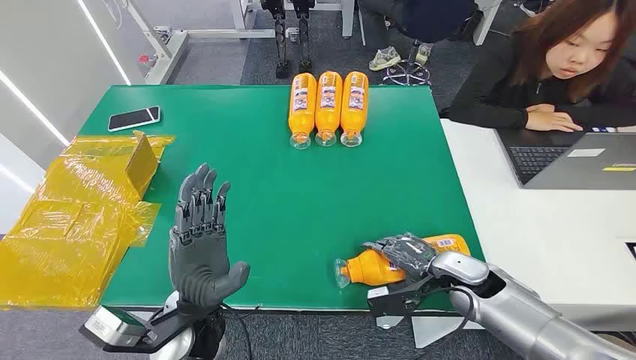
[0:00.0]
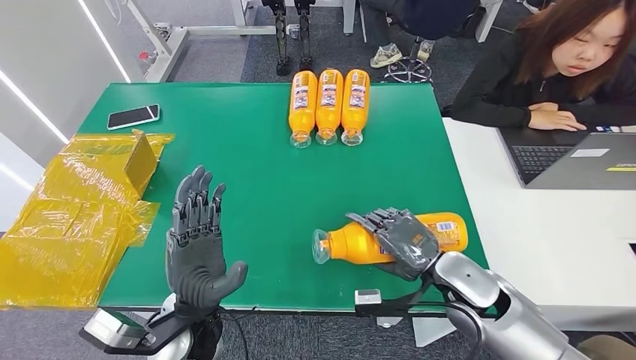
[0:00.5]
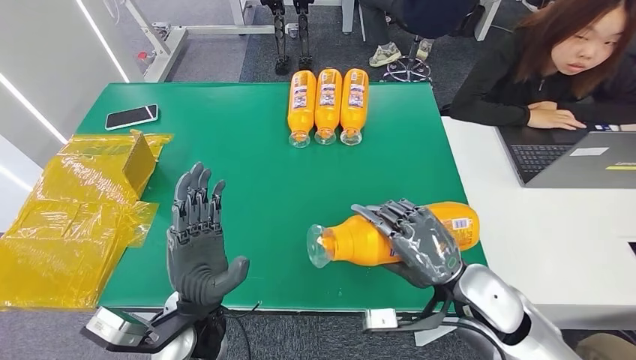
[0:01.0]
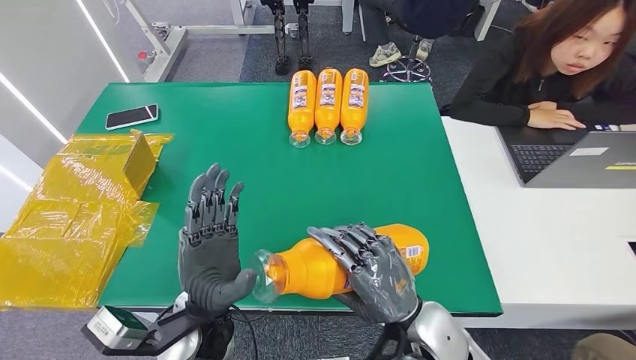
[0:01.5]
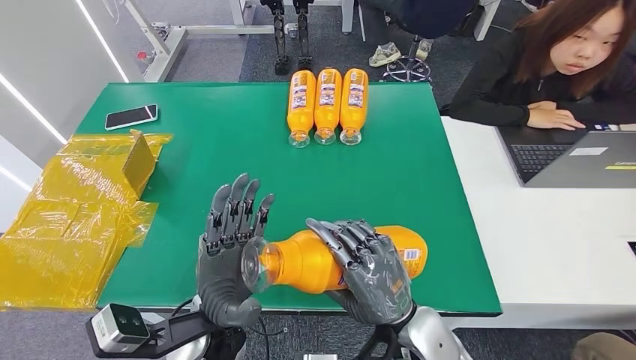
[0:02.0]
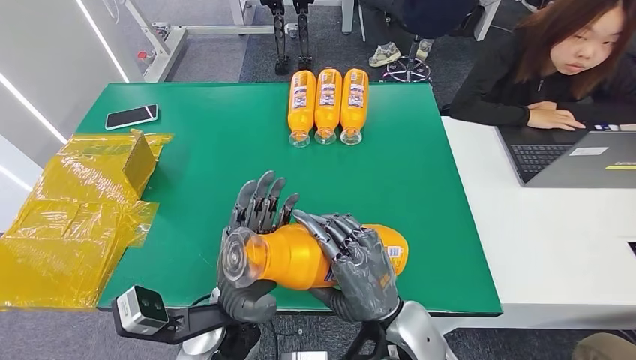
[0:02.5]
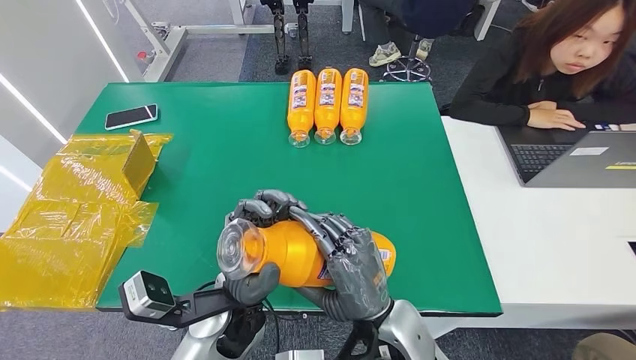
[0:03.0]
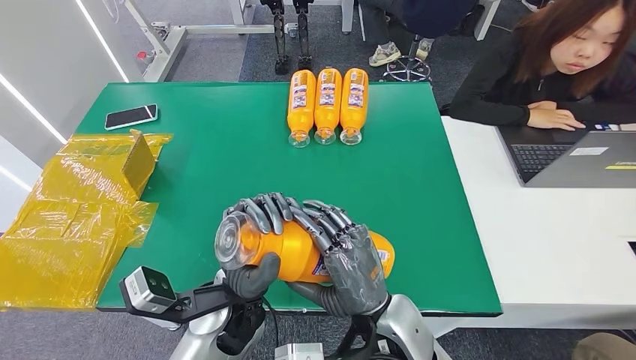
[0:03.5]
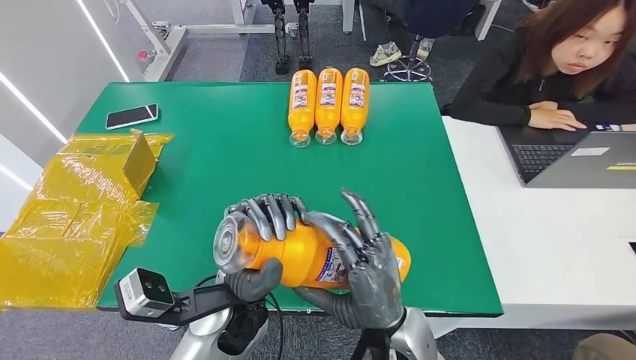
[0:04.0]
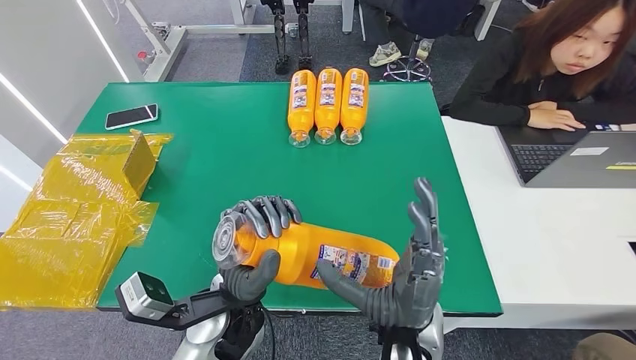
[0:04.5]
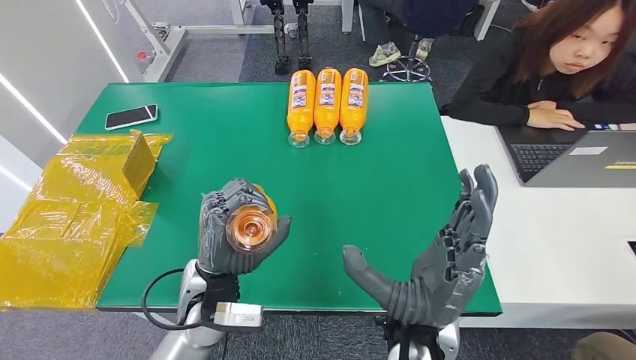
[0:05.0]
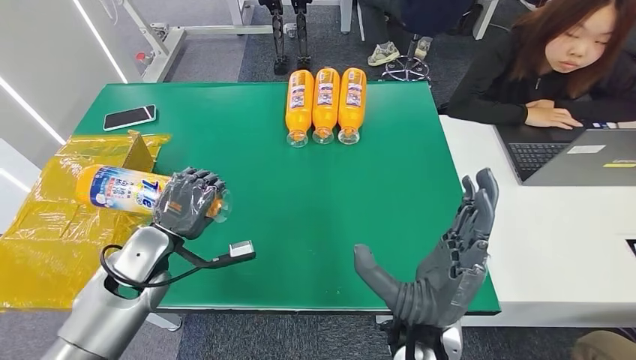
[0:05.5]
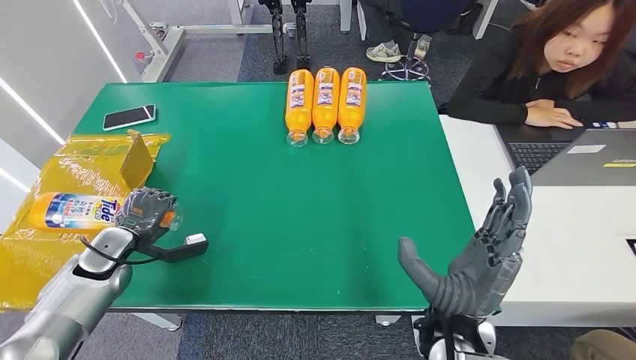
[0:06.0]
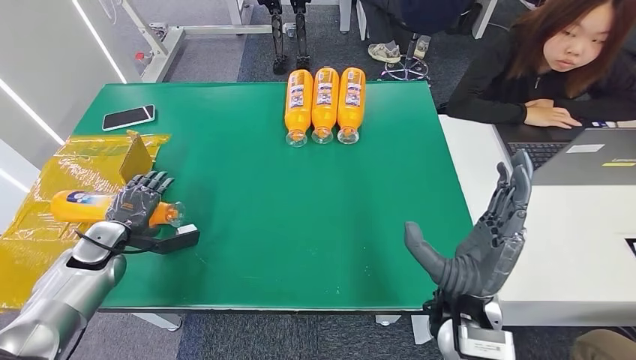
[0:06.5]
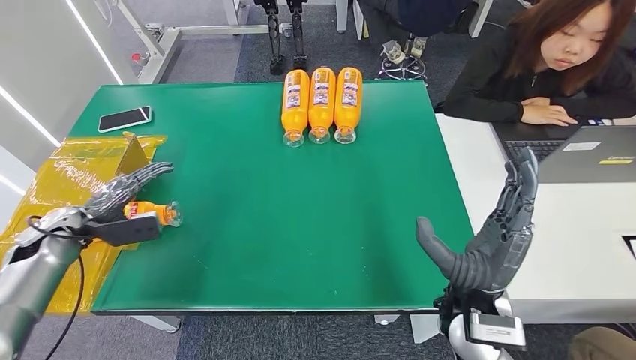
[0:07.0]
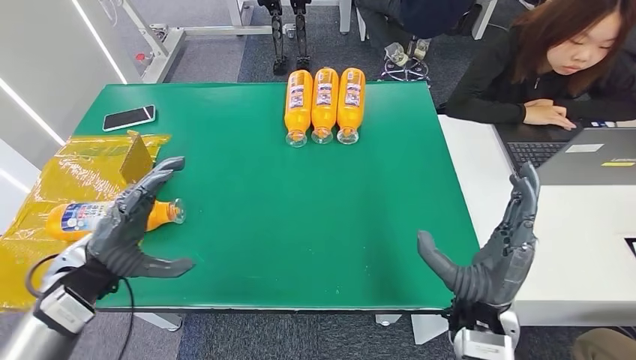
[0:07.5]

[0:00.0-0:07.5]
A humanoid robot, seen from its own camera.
Step, 0:00.0 to 0:02.0: Pick up the bottle from the table.
Step, 0:02.5 to 0:07.5: Turn the bottle to the front side.
0:05.5 to 0:07.5: The left hand travels to the left and back again, roughly 20 cm each way. The right hand is displaced to the right by roughly 10 cm.

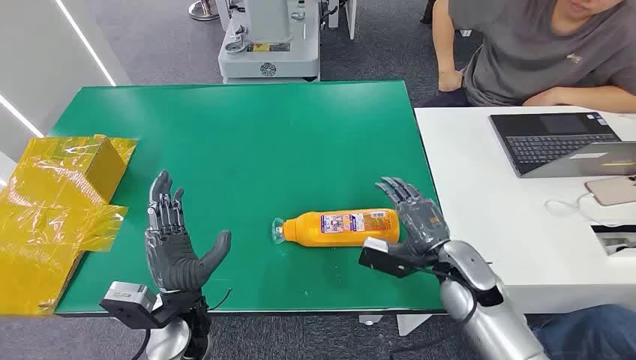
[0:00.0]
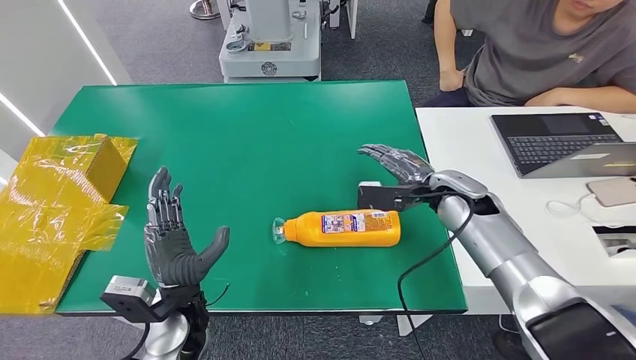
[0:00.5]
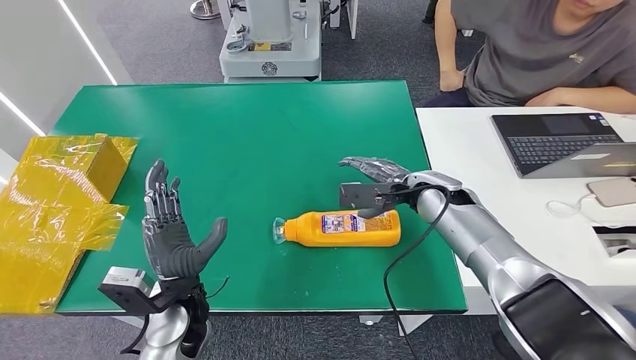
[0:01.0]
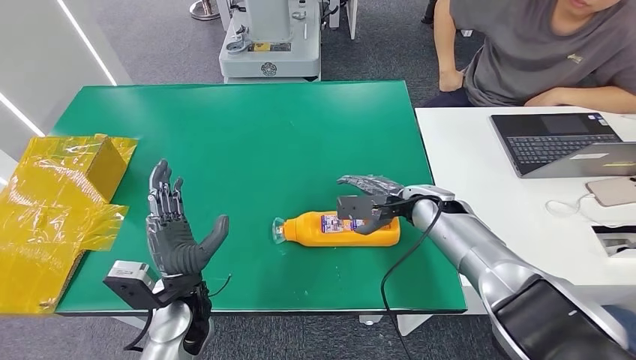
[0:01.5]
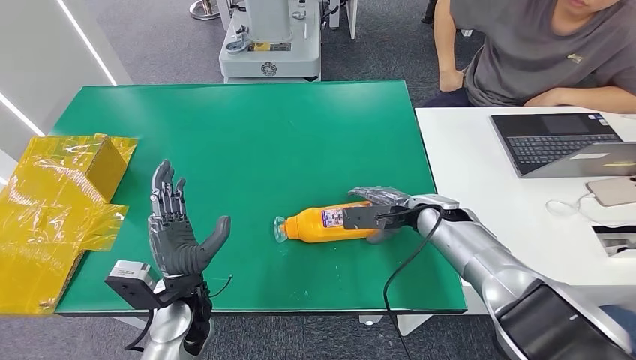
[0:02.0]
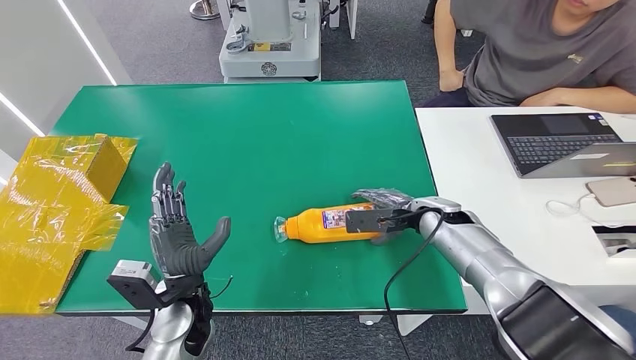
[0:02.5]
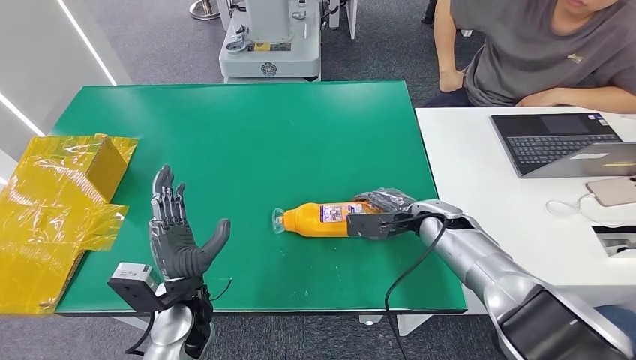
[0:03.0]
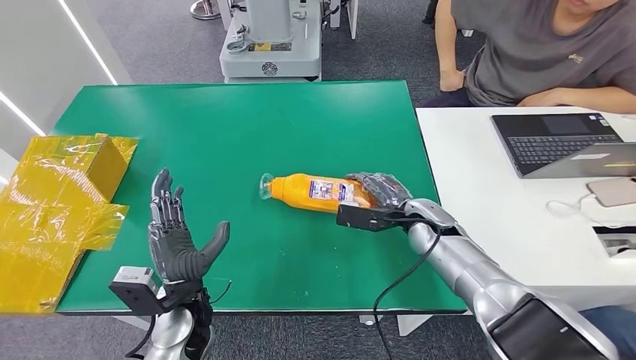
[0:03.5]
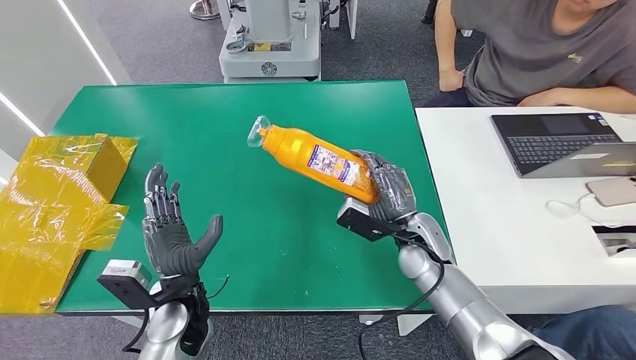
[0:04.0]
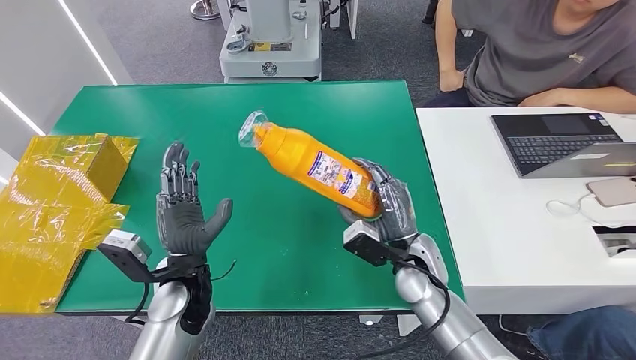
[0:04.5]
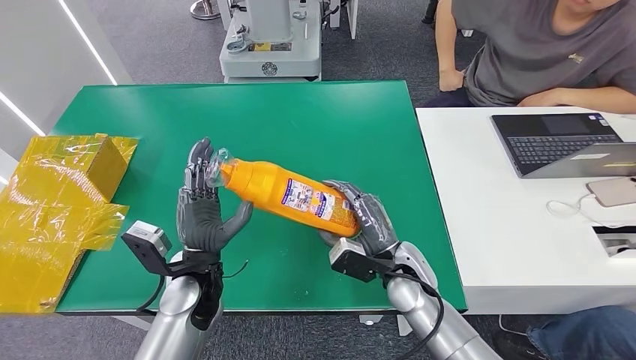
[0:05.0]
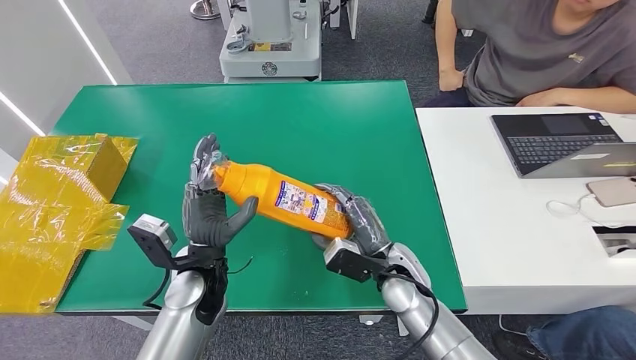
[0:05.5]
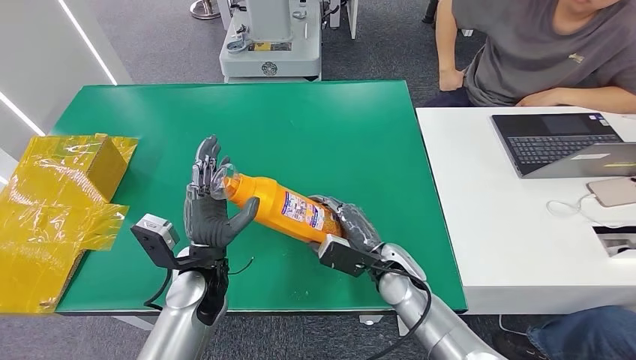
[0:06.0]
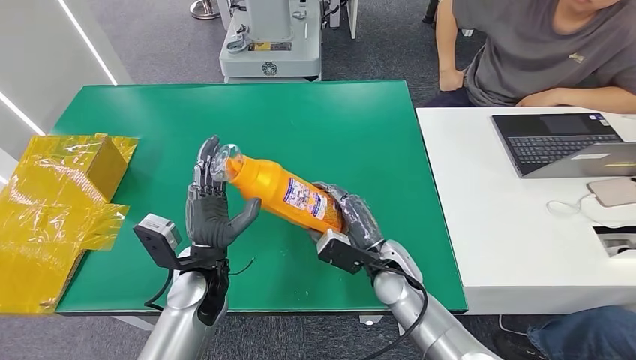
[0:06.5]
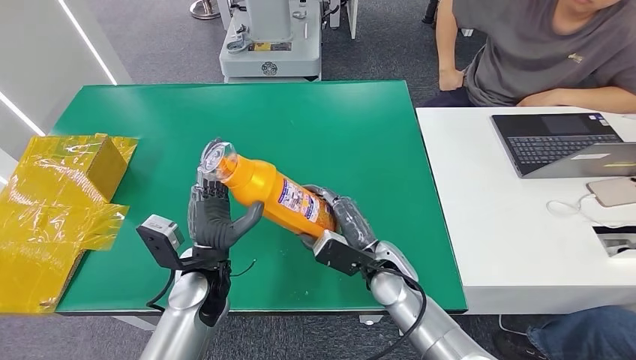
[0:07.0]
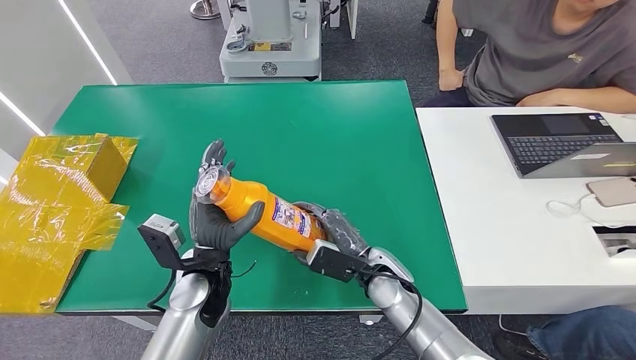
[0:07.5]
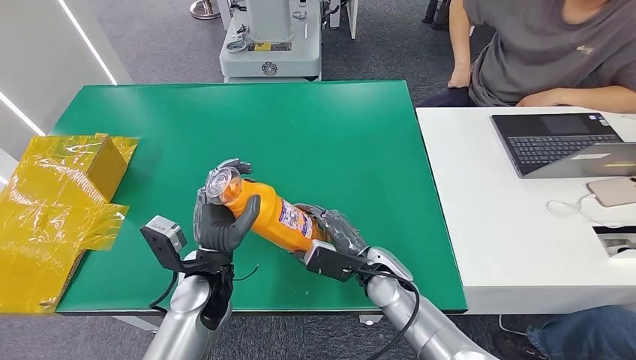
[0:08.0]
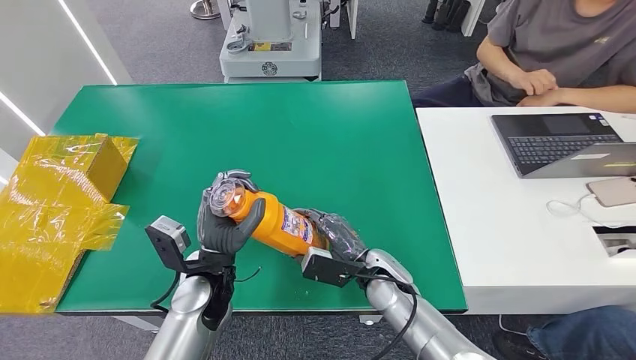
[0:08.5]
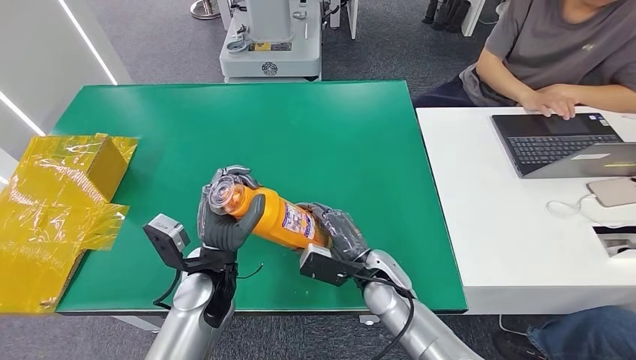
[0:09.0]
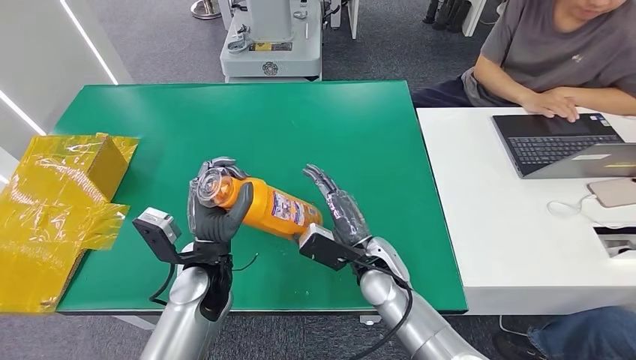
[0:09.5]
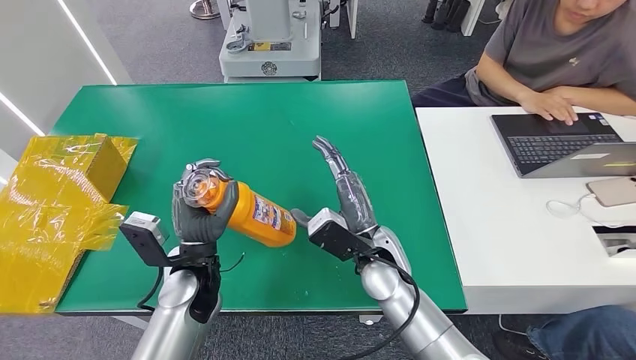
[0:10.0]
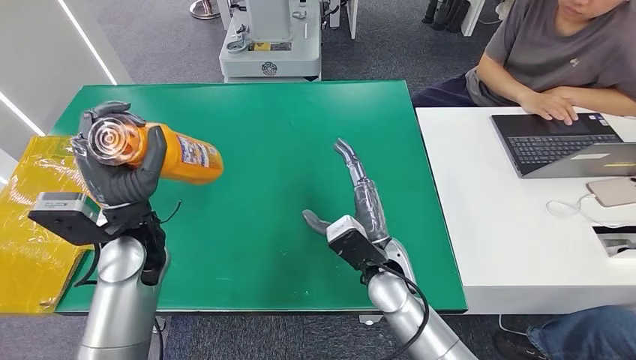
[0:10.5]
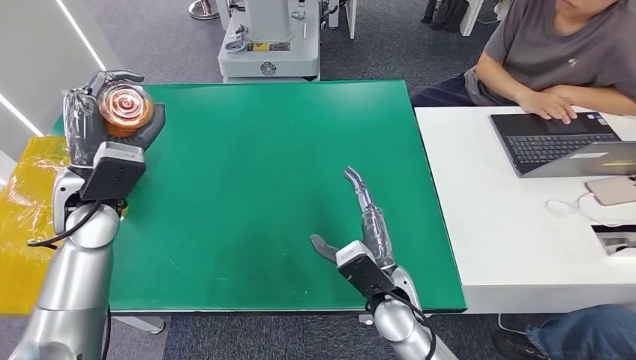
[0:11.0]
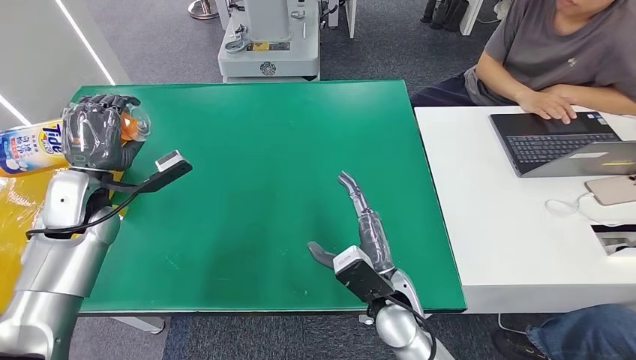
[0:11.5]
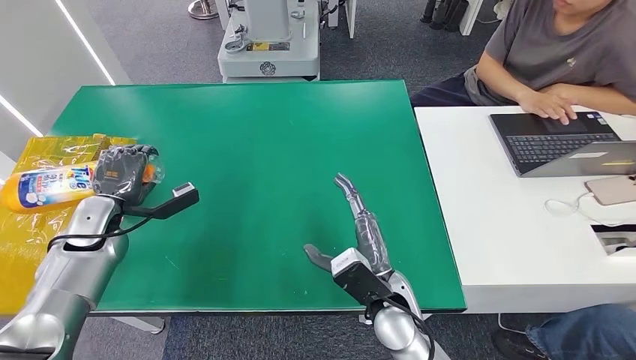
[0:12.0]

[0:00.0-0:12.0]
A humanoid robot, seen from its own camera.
Step, 0:00.0 to 0:05.5: Pick up the bottle from the table.
Step, 0:06.5 to 0:12.0: Turn the bottle to the front side.
0:02.0 to 0:04.0: The right hand moves backward and to the left, some 10 cm.
0:04.0 to 0:06.0: The right hand moves approximately 5 cm. The left hand shifts by about 5 cm.
0:06.0 to 0:08.0: The hands stay close to where they were, moving slightly.
0:08.0 to 0:10.0: The right hand is displaced upward by about 5 cm.
